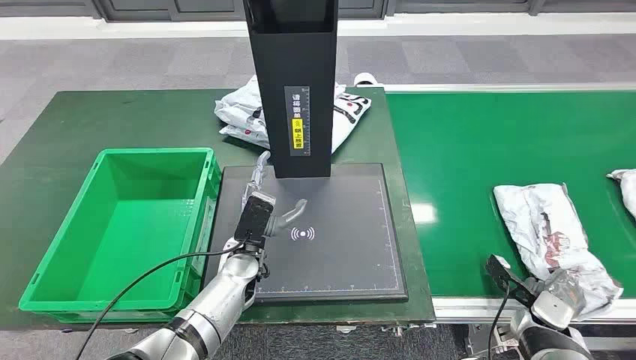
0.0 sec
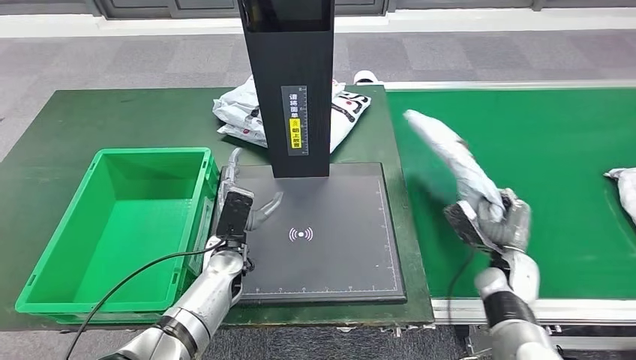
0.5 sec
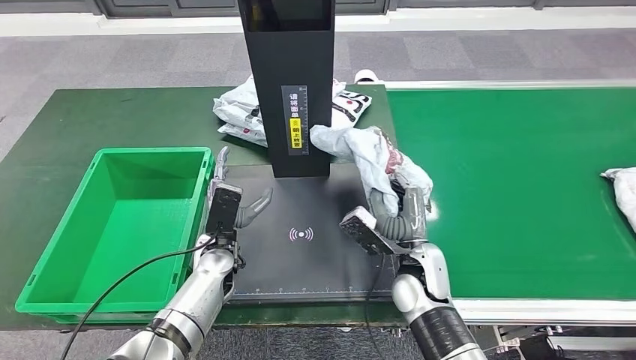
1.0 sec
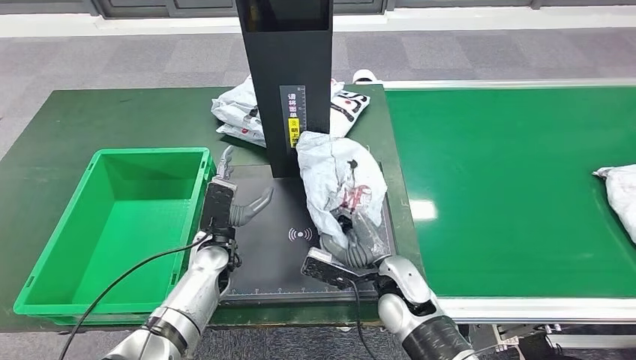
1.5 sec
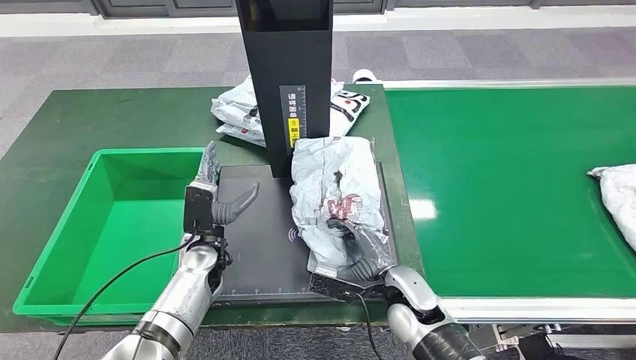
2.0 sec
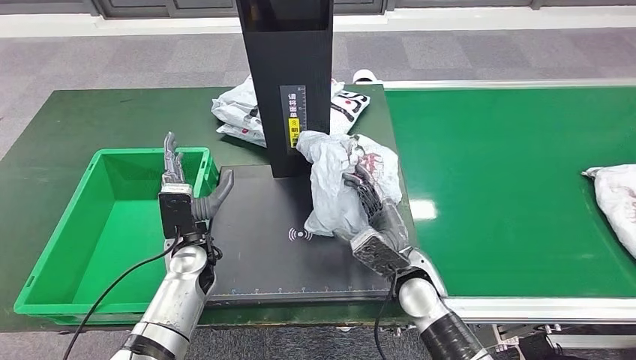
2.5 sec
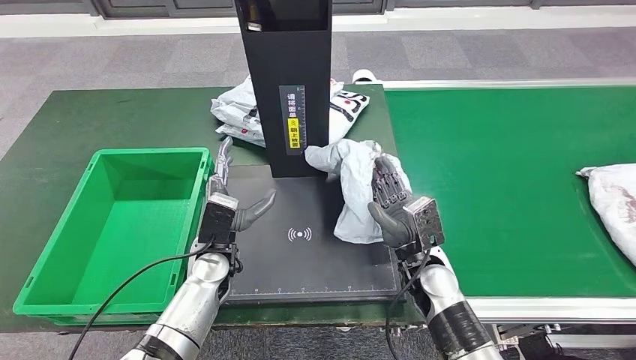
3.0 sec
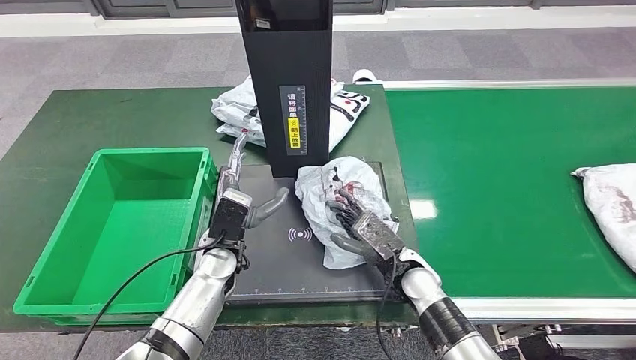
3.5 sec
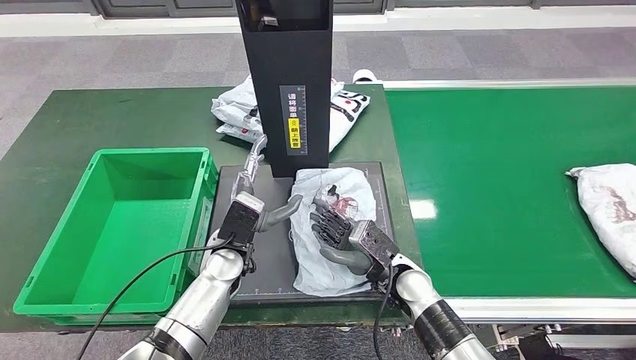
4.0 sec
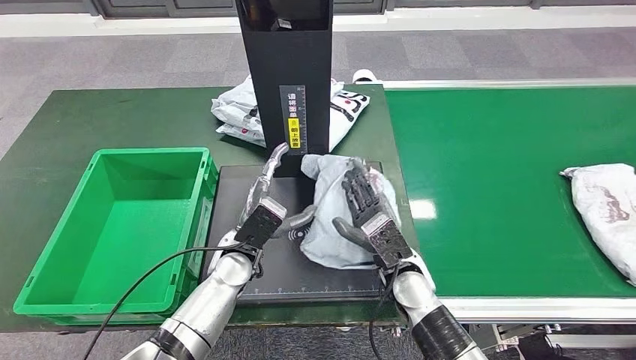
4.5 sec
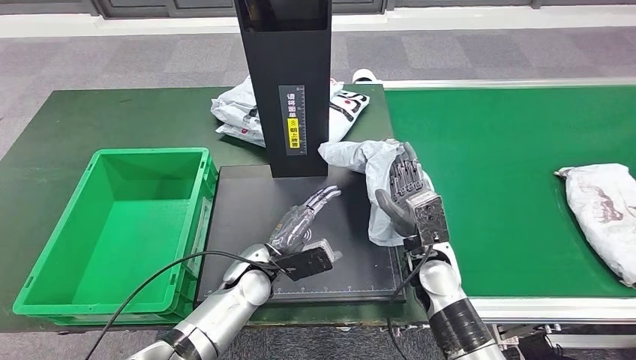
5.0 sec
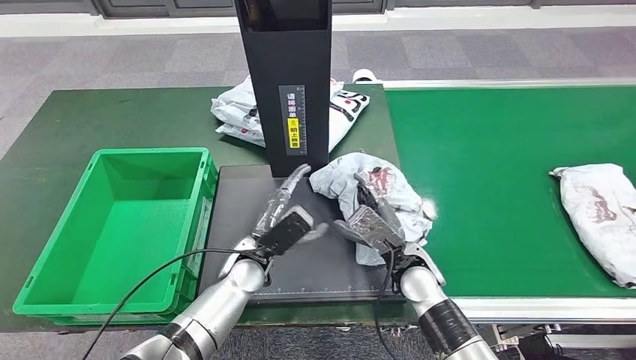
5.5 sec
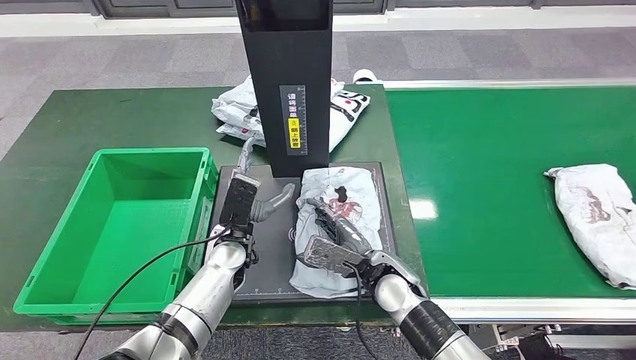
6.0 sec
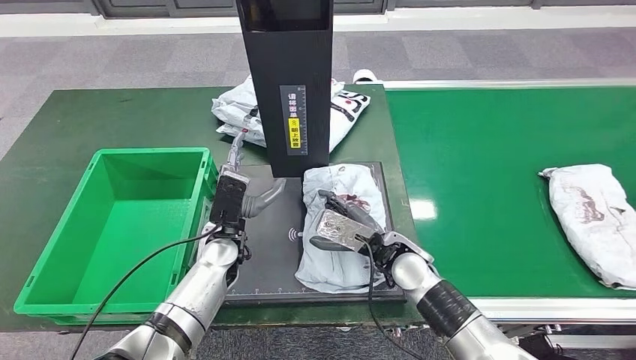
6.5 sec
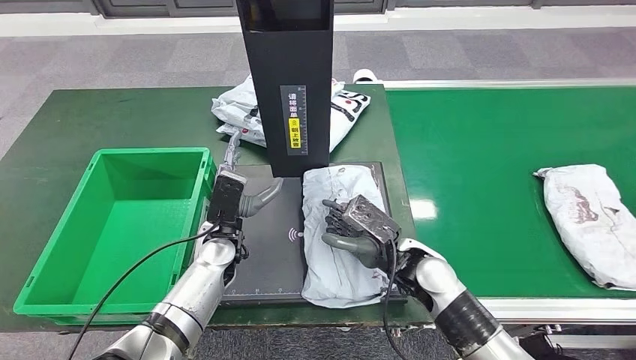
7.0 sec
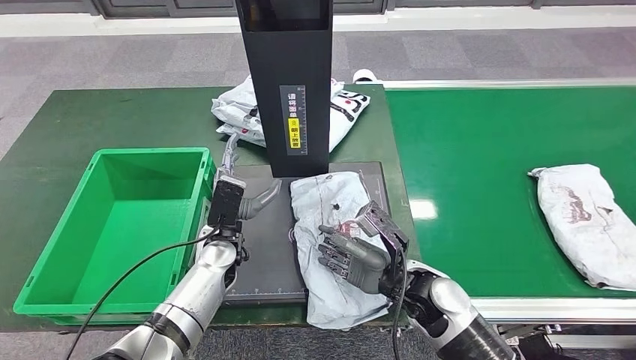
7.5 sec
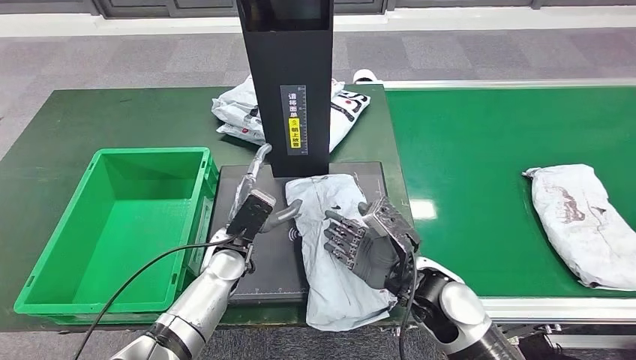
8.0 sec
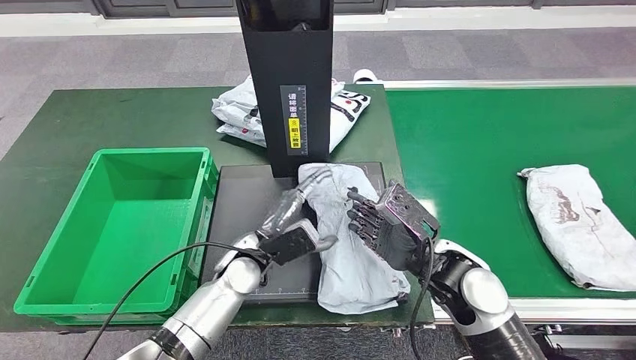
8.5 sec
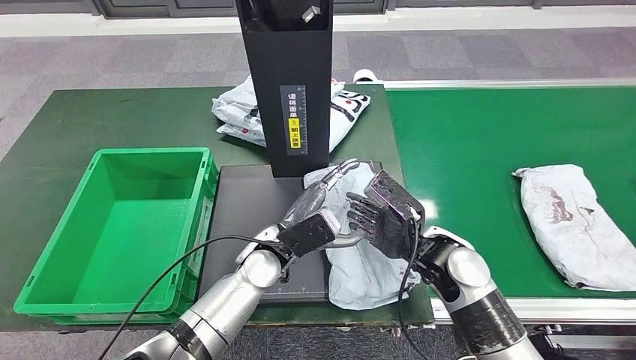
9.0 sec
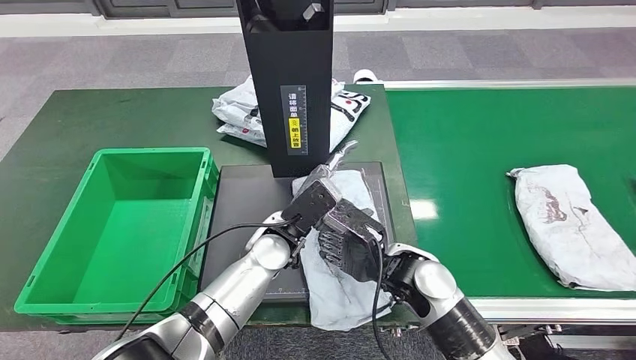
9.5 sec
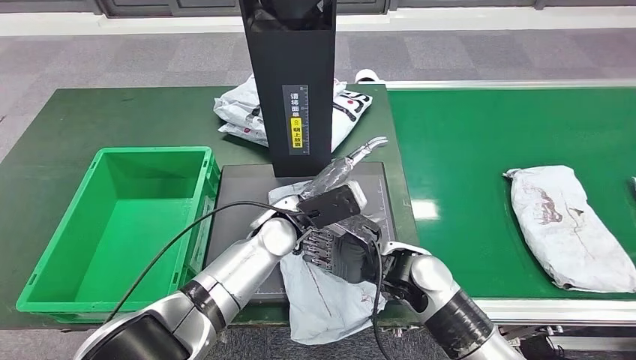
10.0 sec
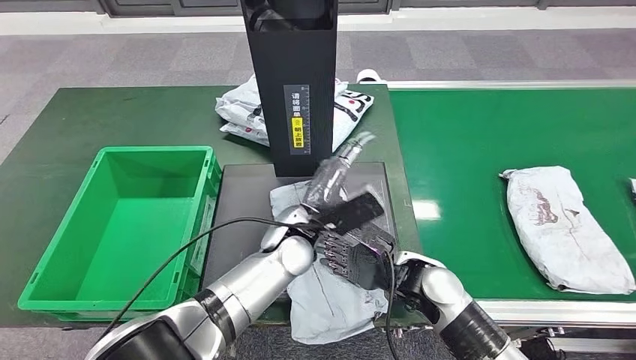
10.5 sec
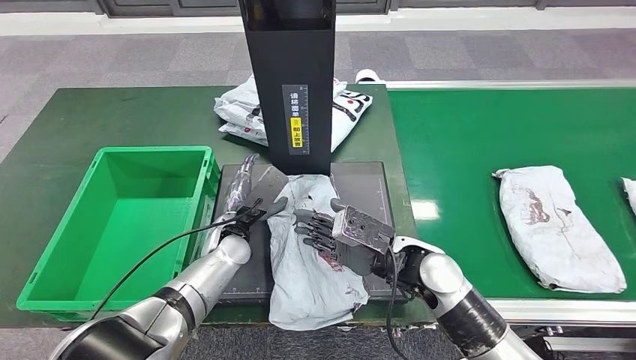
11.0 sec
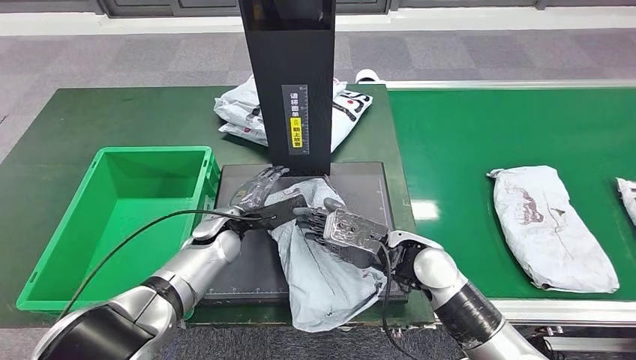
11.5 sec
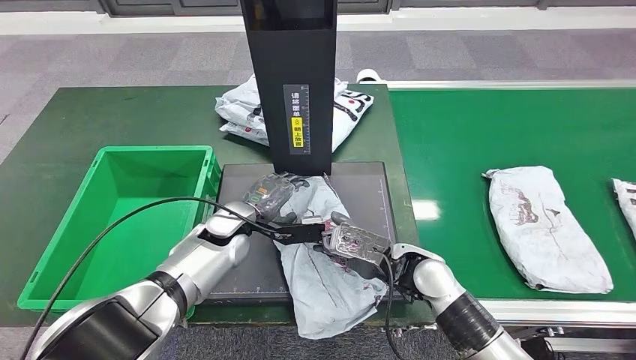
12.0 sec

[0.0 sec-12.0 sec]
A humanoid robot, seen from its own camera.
Step, 0.0 sec to 0.5 sec: Take the parcel off the conveyor belt.
Step, 1.0 sec to 10.5 sec: Place the parcel onto the inbound machine.
2.0 sec to 4.0 sec: The left hand ends up about 5 cm from where it was.
6.0 sec to 8.0 sec: The right hand heads upward and to the right, covering roughly 10 cm.

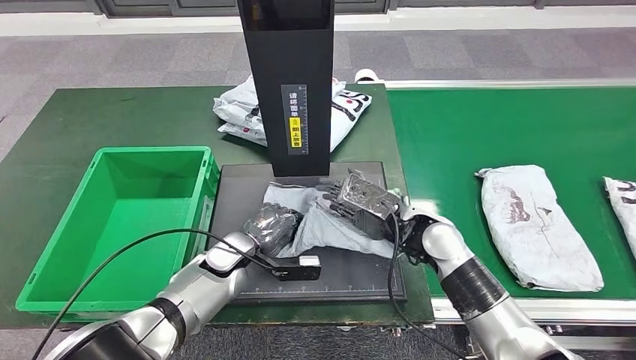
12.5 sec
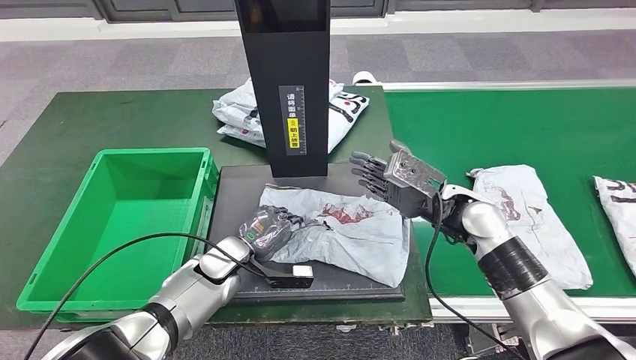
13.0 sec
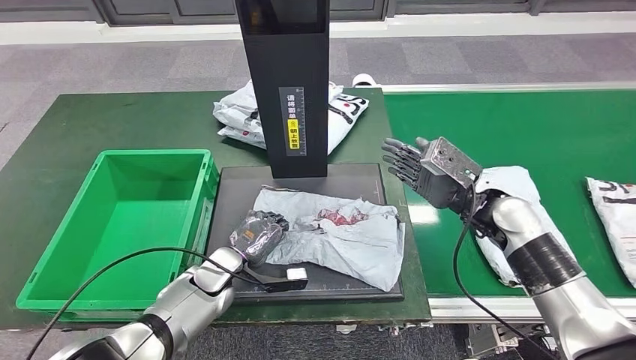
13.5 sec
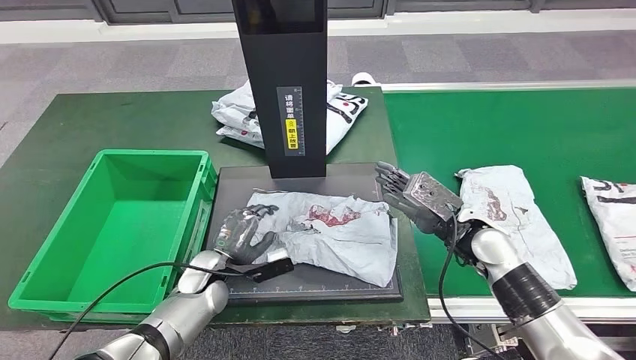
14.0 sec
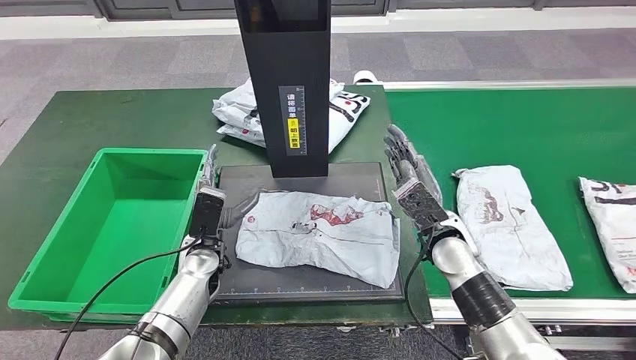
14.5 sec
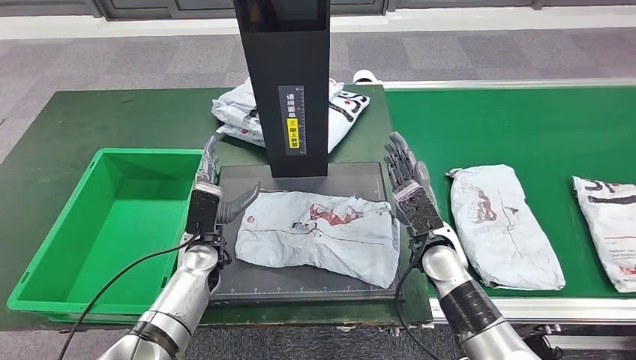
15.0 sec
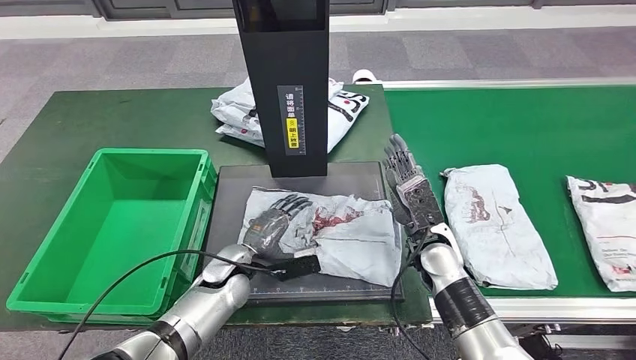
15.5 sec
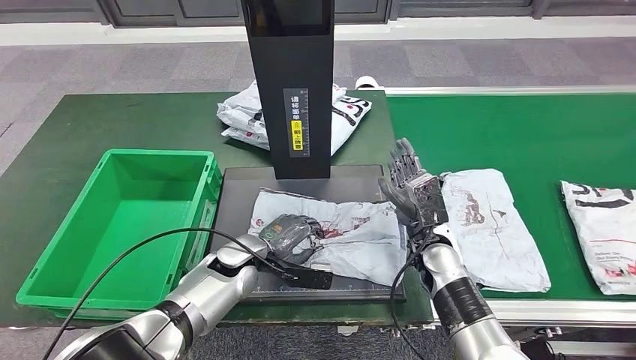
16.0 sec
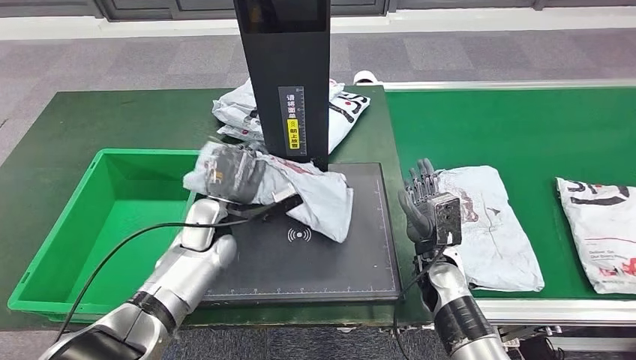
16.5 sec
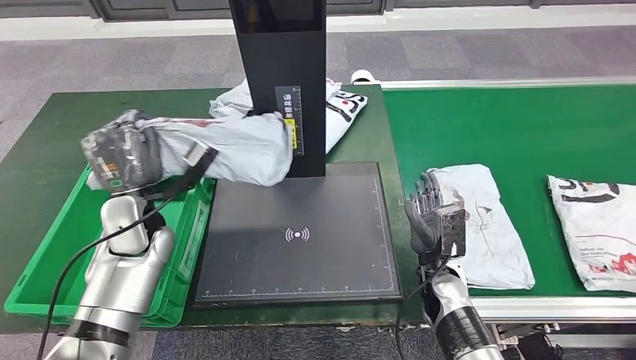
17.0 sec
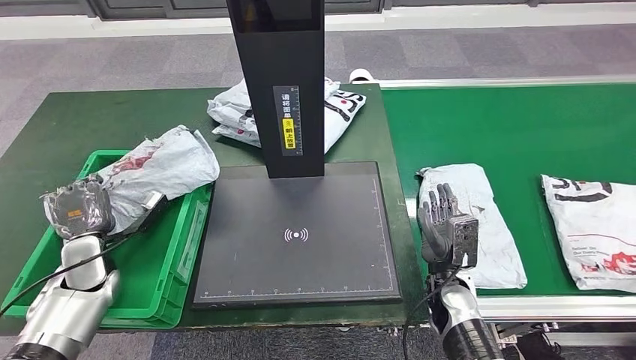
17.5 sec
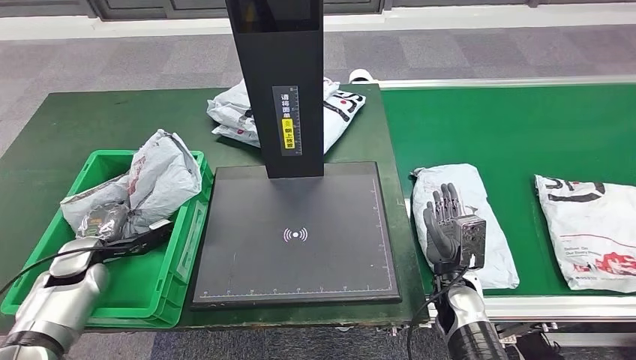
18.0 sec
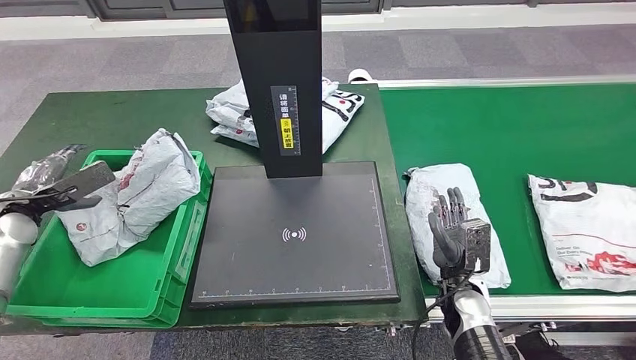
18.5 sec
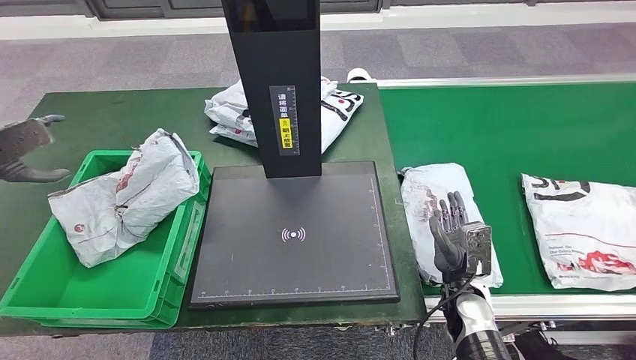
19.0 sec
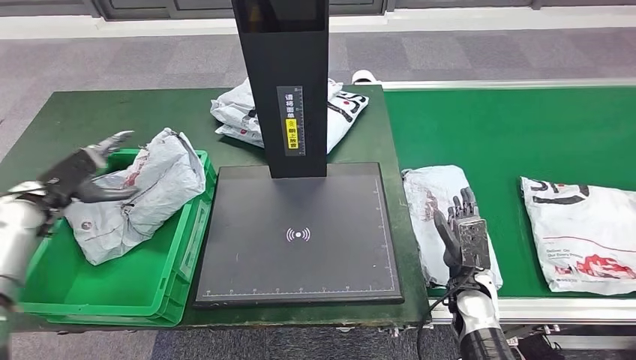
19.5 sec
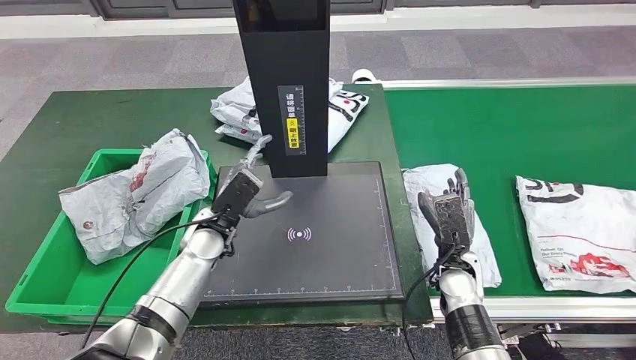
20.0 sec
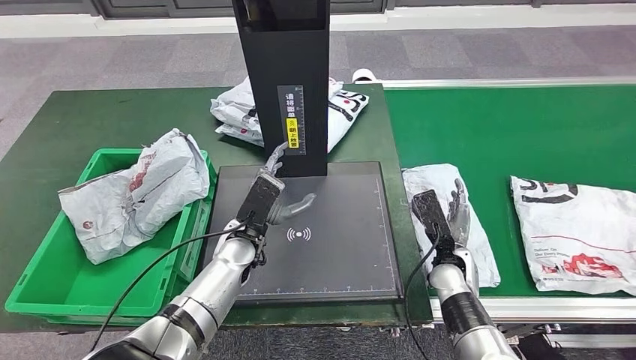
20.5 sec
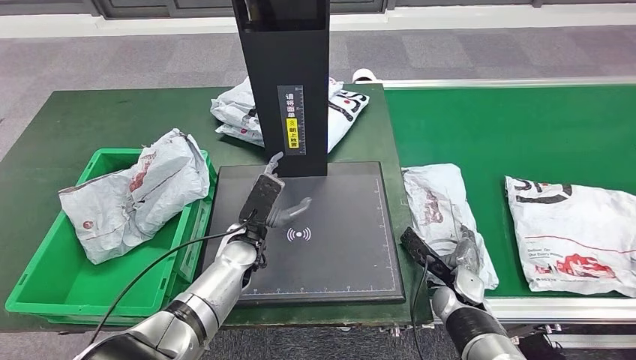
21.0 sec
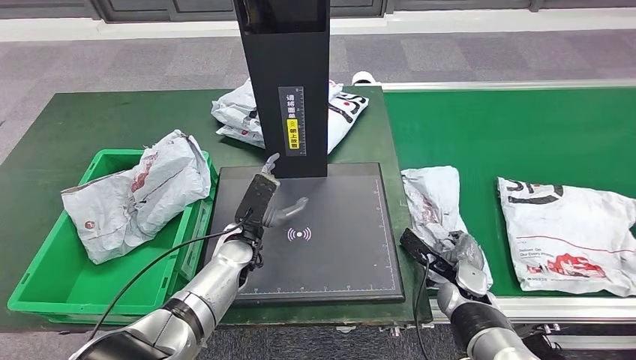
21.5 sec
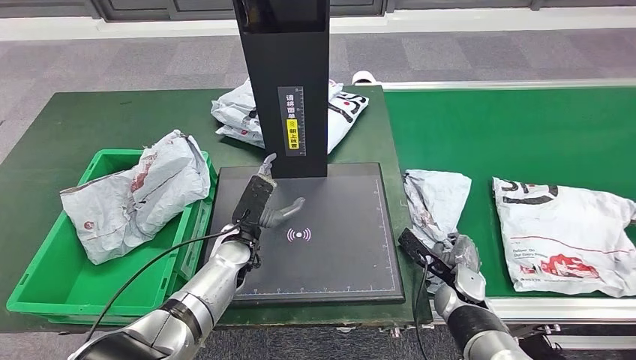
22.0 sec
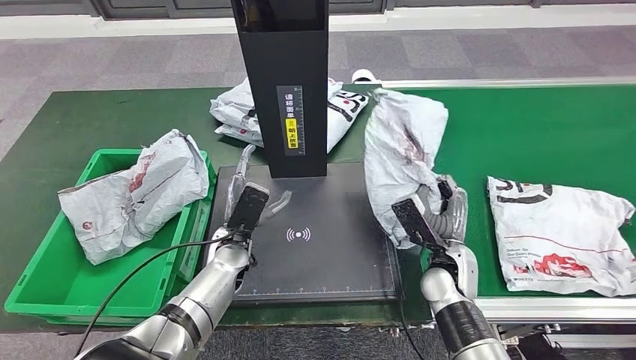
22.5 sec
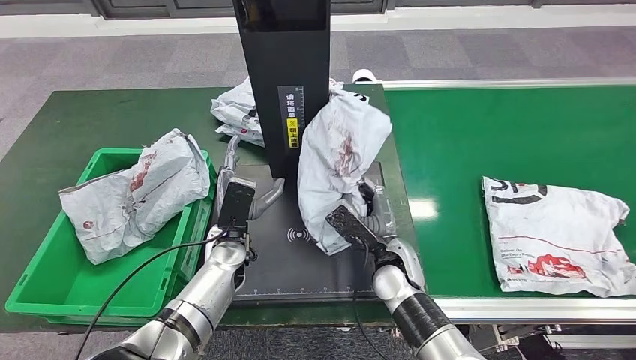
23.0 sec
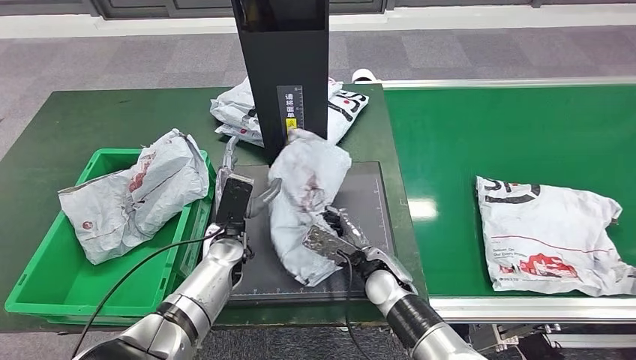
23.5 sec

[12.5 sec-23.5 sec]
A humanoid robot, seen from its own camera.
Step, 12.5 sec to 17.0 sec: Pick up the parcel from the inbound machine.
Step, 17.5 sec to 19.0 sec: Put the parcel inside the courier box.
Step, 19.5 sec to 22.5 sec: Pick up the parcel from the conveyor belt.
